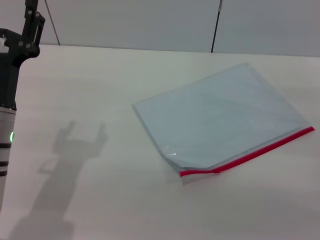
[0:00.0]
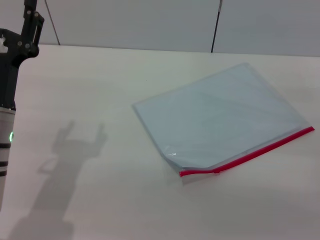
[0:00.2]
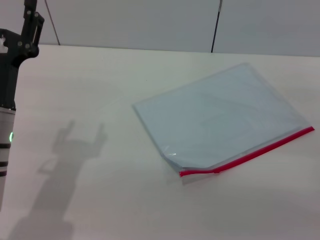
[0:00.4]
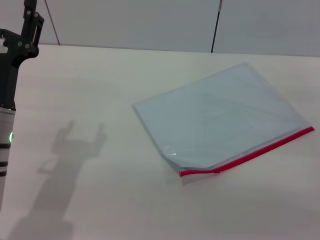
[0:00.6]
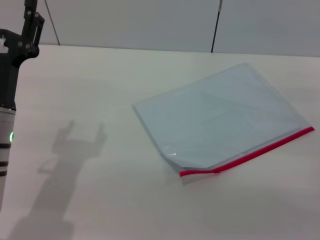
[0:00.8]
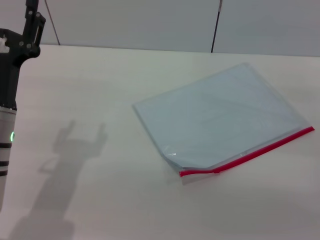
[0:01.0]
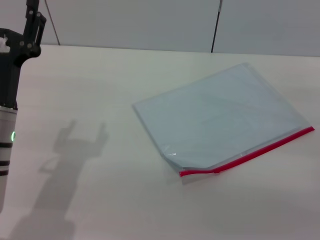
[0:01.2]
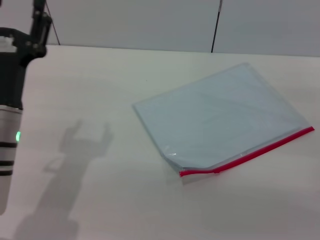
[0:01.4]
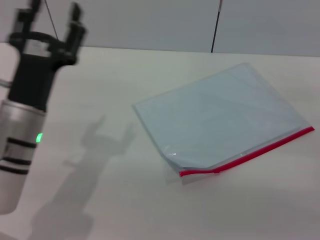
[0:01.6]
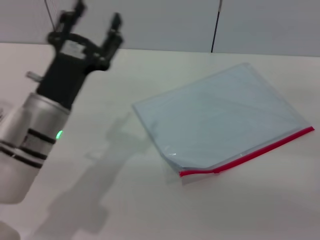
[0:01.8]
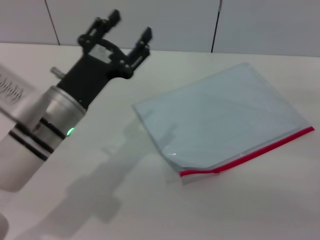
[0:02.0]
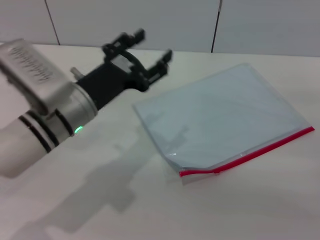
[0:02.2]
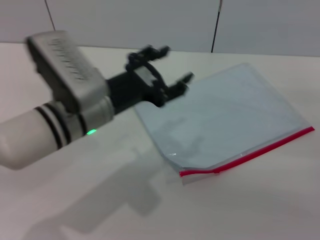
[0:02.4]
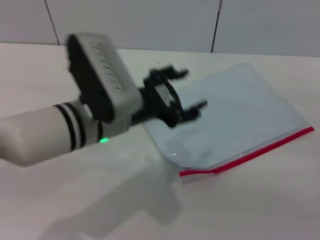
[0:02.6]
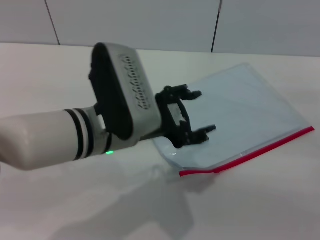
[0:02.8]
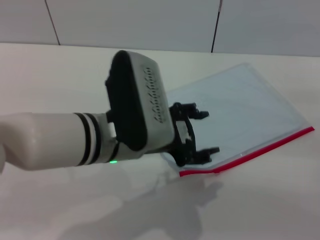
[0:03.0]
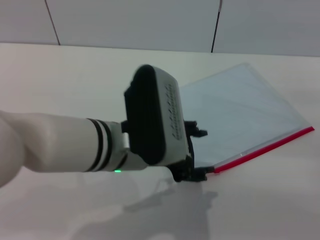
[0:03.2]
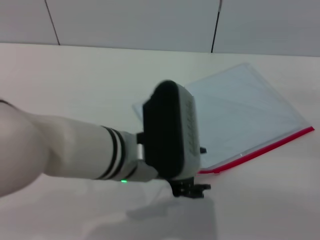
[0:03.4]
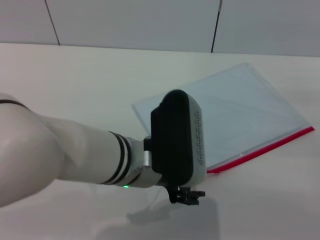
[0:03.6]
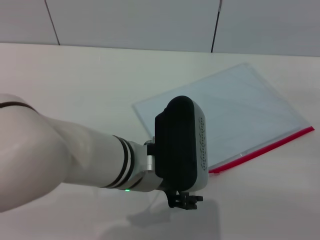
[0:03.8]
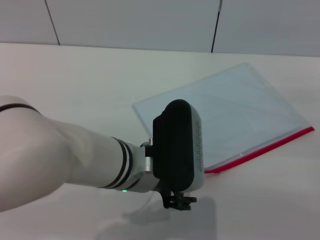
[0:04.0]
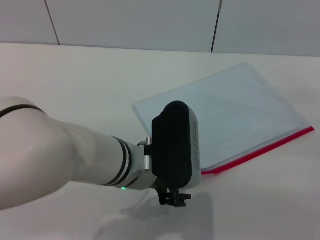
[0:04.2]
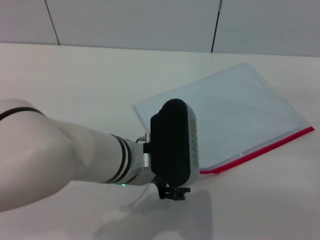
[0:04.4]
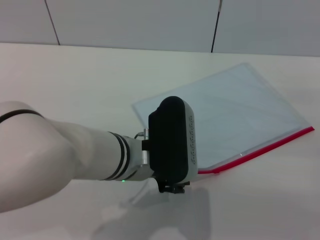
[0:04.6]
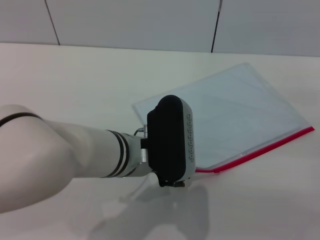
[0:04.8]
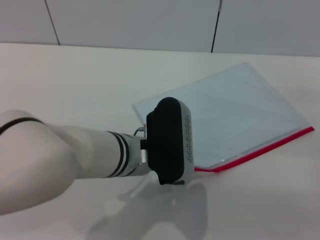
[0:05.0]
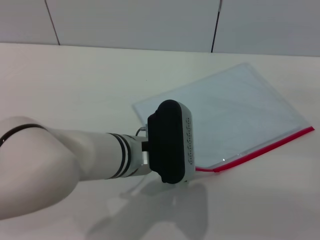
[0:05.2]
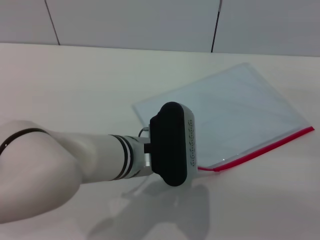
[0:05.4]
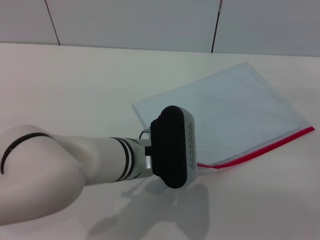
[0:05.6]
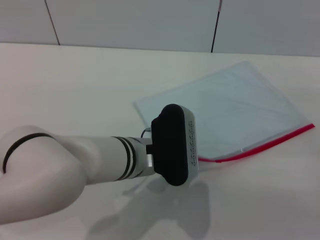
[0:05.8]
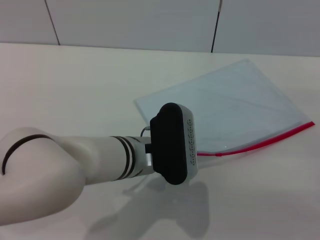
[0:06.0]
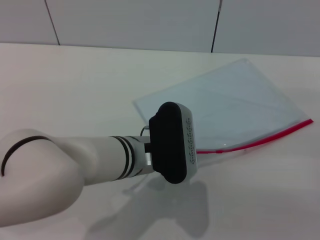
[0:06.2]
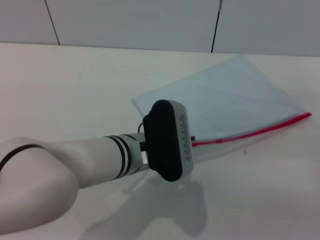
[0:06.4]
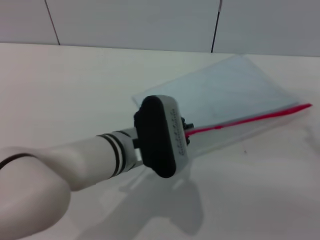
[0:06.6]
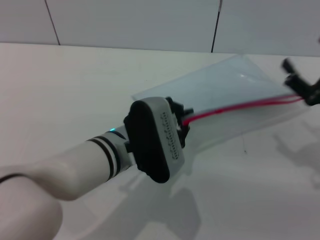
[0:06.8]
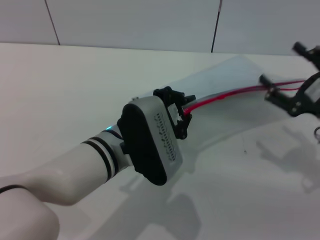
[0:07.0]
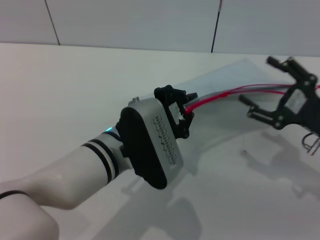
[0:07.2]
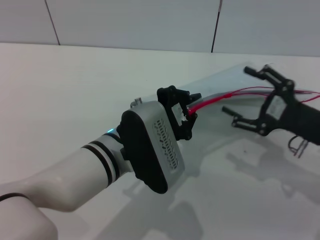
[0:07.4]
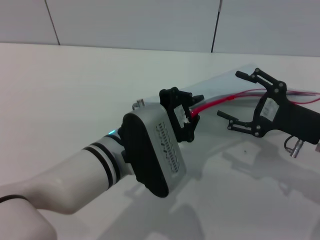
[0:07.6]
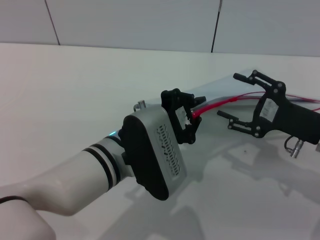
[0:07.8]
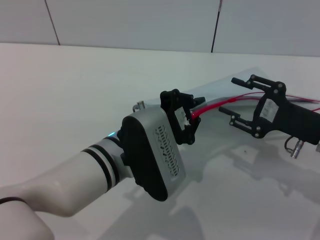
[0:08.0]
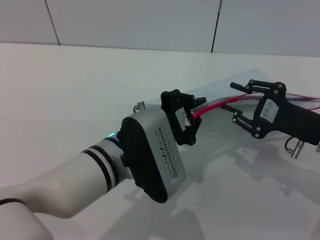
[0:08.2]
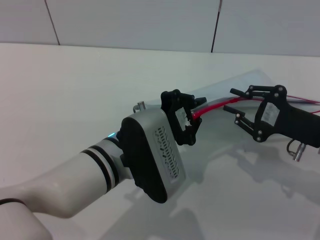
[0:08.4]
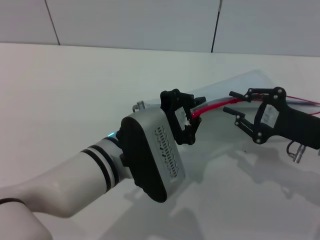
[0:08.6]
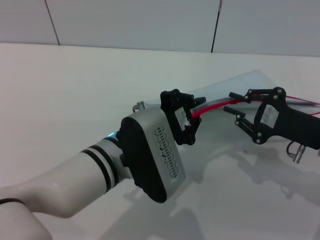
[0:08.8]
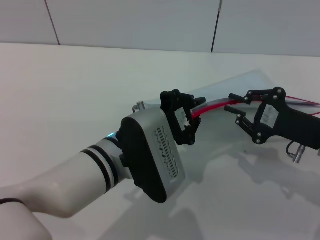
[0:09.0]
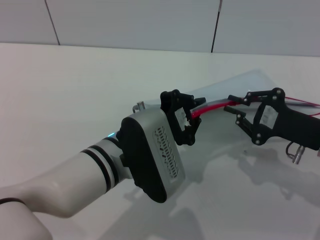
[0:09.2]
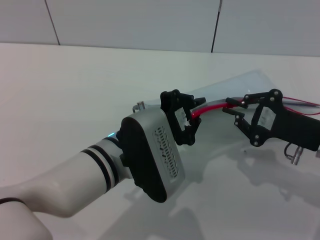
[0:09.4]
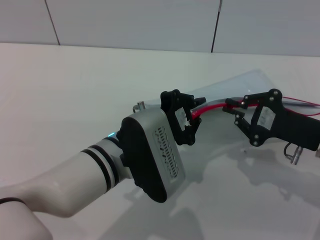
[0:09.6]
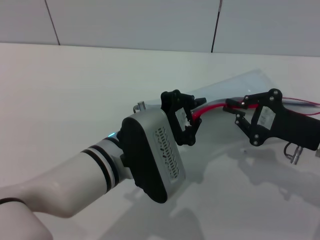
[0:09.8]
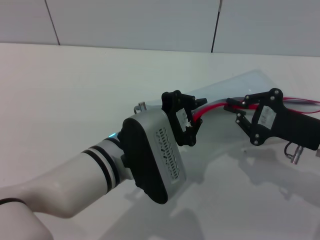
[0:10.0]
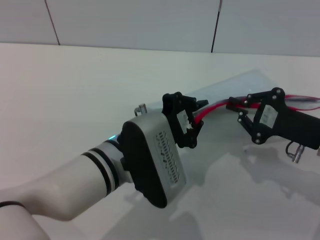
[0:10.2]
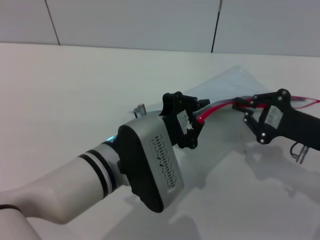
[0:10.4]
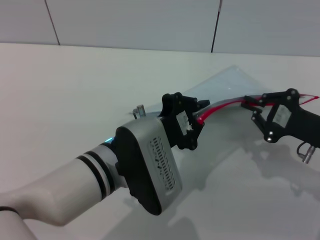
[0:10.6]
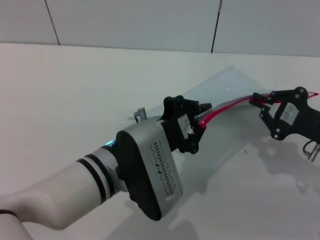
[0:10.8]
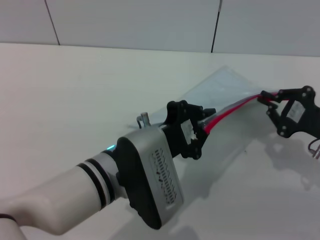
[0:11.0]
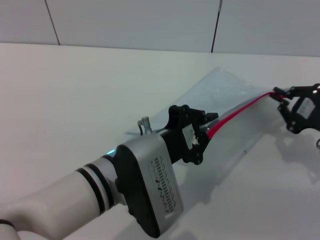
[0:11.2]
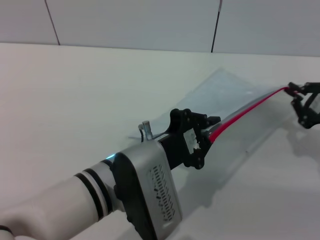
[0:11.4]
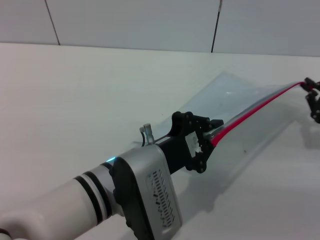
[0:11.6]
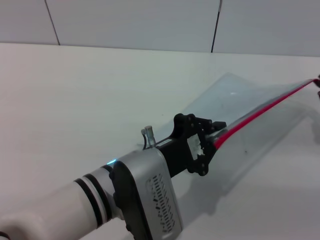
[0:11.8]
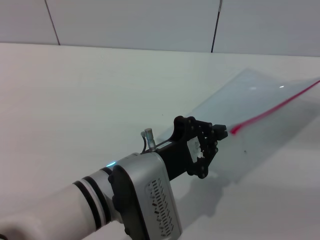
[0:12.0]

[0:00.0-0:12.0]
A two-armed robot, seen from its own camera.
Step, 0.0 to 7.2 s: Pick up the transparent plastic bag with the left gripper.
Step, 7.6 to 11.8 s: Pulling up the zipper on the transparent plastic bag with the right gripper to close it.
0.0 to 1.6 s: The grippers move only a little.
1.6 to 3.0 s: The left gripper moves to the right and upward, roughly 15 cm.
4.4 to 6.0 s: The left gripper closes its fingers.
6.0 to 7.6 s: The right gripper is displaced to the left by some 5 cm.
7.6 to 9.0 s: The right gripper closes up.
9.0 to 10.4 s: Both grippers stay put.
10.4 to 12.0 s: The right gripper shifts about 10 cm to the right.

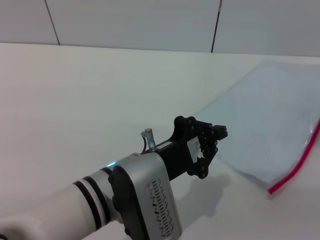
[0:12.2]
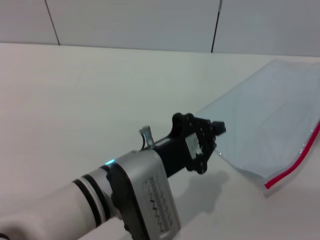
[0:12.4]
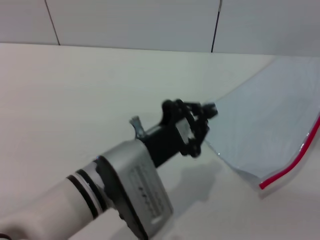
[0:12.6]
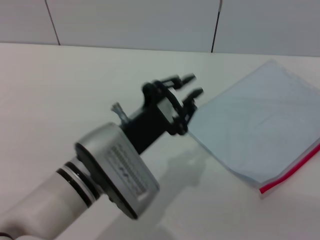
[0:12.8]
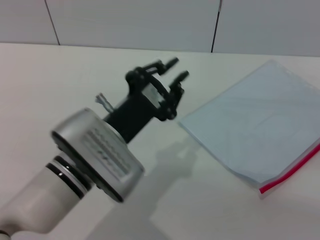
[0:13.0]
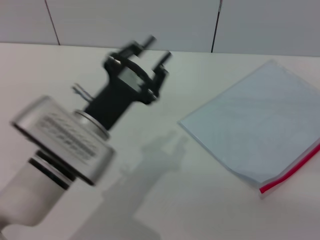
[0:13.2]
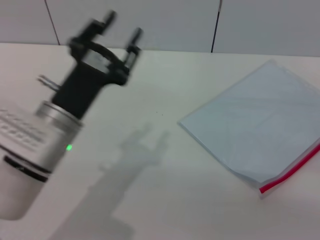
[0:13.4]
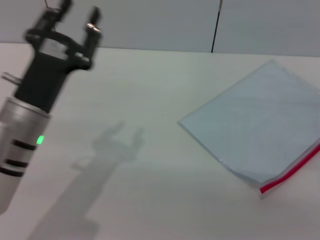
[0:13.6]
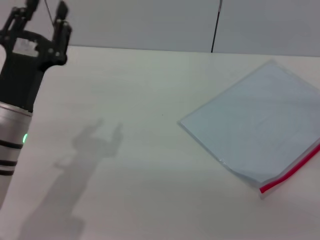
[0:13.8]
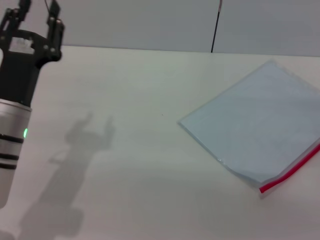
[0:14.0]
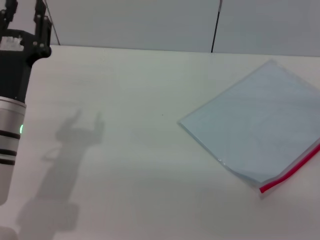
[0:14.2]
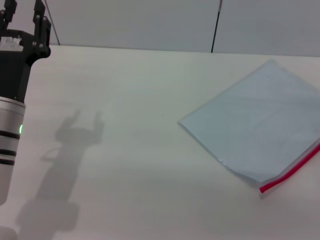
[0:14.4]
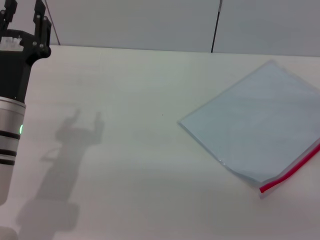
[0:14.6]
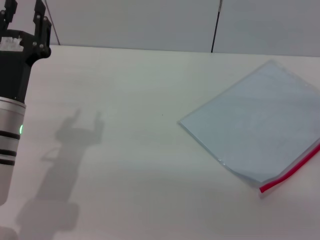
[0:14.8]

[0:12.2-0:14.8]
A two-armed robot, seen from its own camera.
Step, 12.2 to 13.0 s: Place the transparent plastic bag.
12.2 to 13.4 s: The left gripper heads to the left, covering about 10 cm, and opens. The right gripper shifts about 5 cm backward, and opens its fingers.
13.4 to 14.8 s: The left gripper is displaced to the left by about 5 cm.

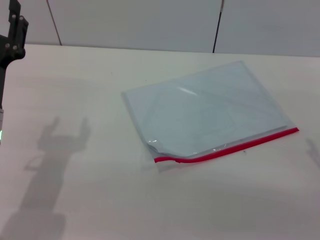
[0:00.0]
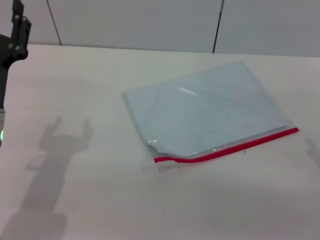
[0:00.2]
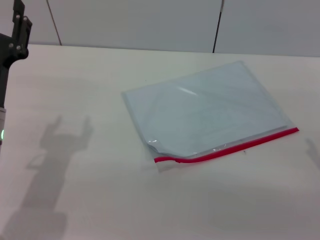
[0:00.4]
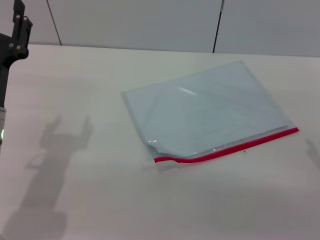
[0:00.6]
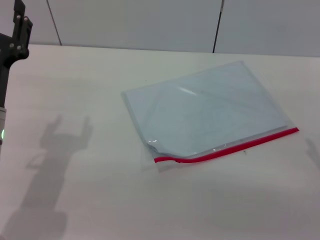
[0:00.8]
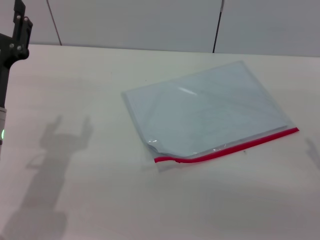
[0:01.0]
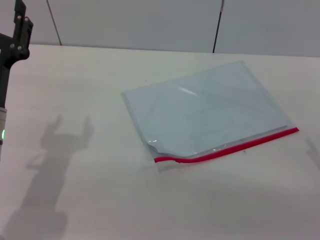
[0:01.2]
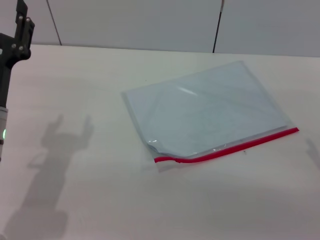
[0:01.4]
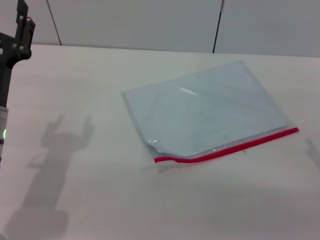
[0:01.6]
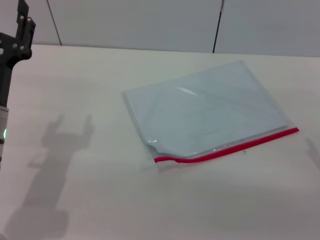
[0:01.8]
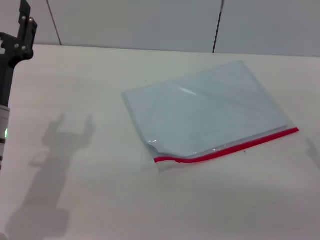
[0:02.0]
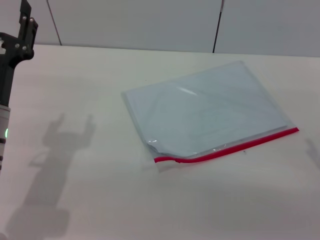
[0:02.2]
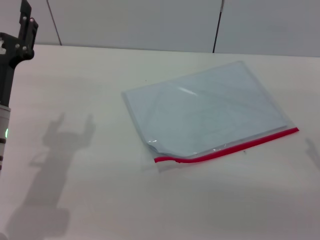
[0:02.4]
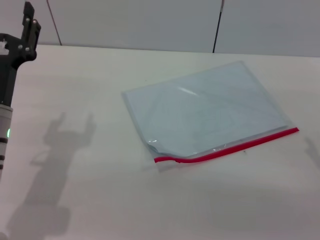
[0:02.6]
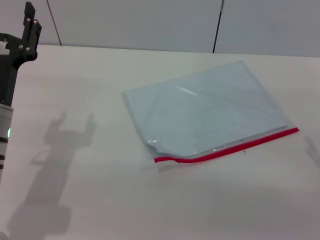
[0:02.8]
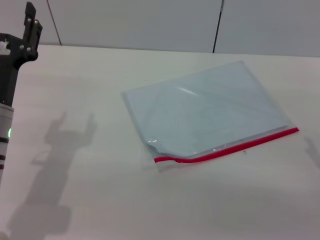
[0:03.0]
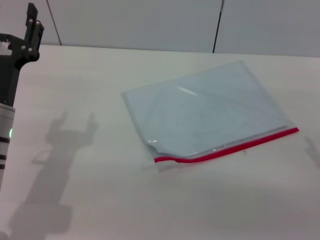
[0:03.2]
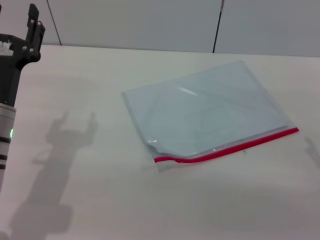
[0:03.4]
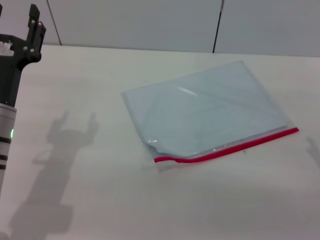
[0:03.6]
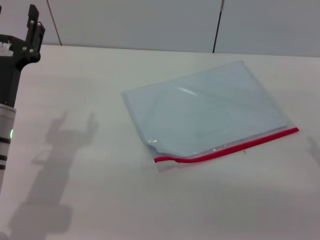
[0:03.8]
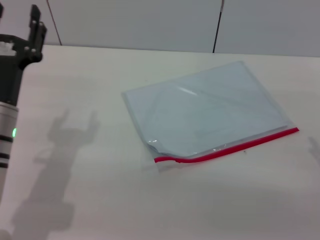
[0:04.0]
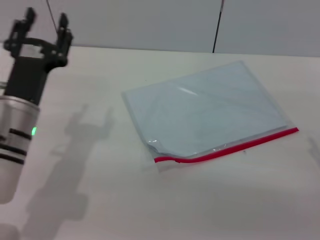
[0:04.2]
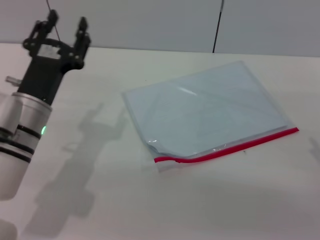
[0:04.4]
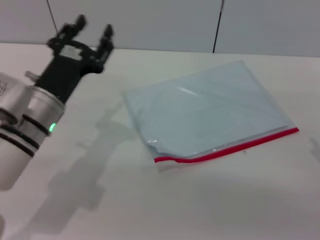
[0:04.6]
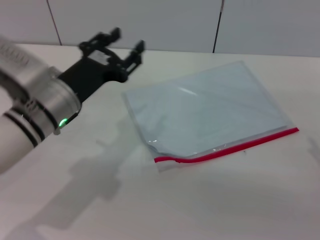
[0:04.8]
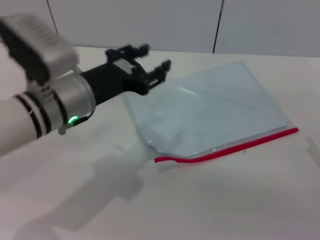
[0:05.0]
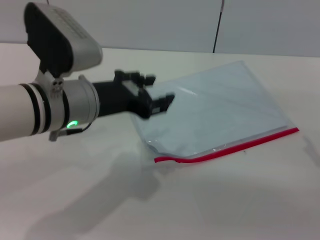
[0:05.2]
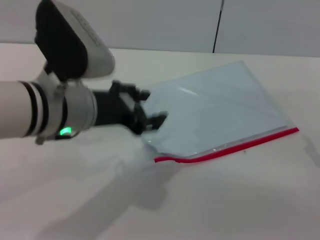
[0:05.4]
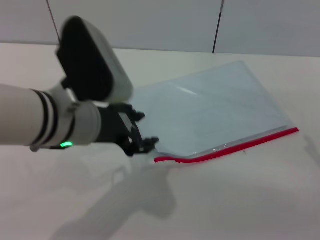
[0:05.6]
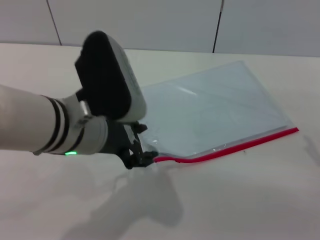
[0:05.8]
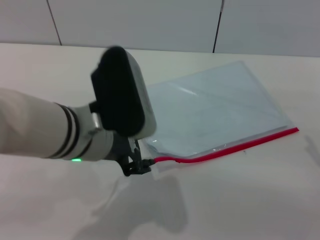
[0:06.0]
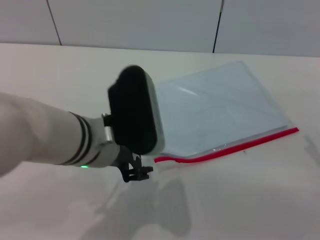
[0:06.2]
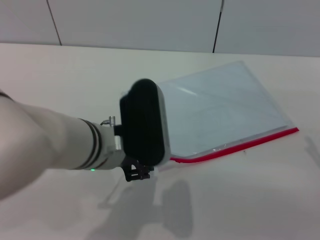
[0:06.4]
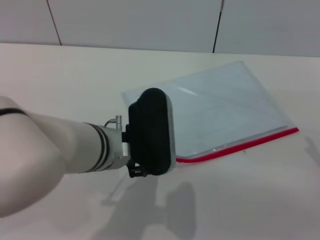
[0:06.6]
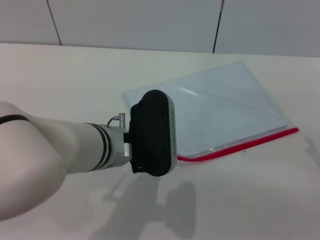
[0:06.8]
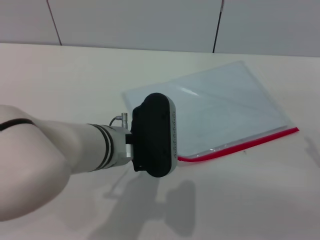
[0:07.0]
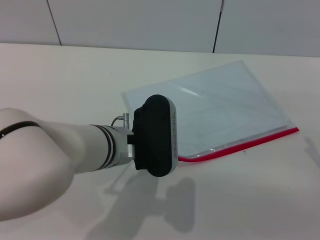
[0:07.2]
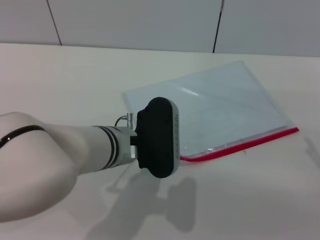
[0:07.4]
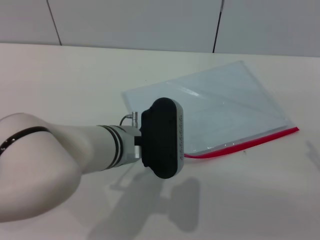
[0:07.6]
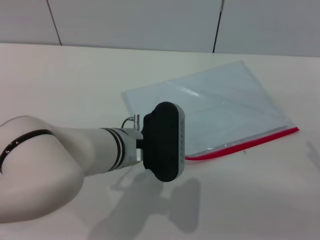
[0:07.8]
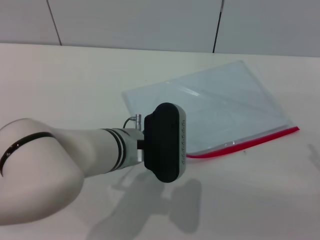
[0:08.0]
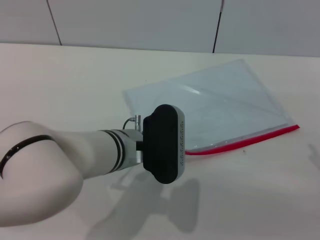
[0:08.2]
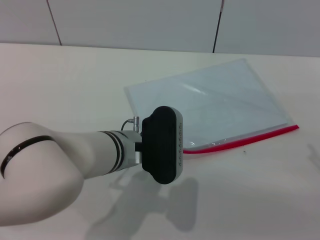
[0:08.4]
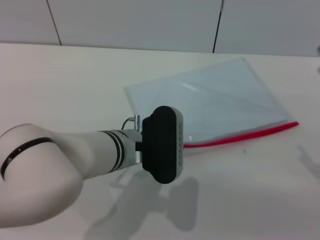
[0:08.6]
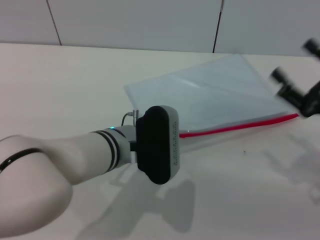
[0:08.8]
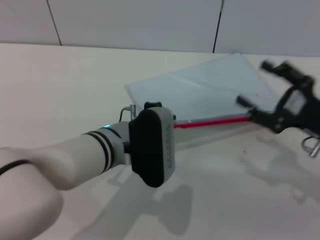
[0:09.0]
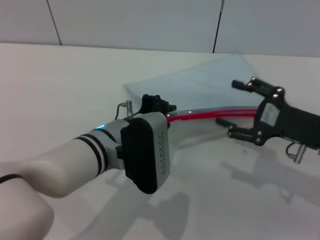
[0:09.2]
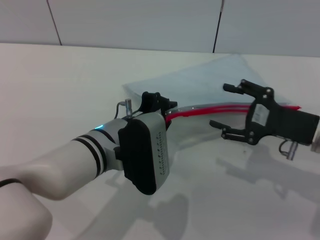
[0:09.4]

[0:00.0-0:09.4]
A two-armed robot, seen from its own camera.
Step, 0.0 to 9.2 s: Pick up the transparent plastic bag with the left gripper.
0.0 to 3.2 s: The two grippers keep their place.
3.2 to 4.8 s: The left gripper shifts about 5 cm to the right.
4.8 to 6.2 s: The left gripper moves to the right, roughly 5 cm.
6.2 to 7.8 s: The left gripper moves downward, approximately 5 cm.
7.8 to 9.4 s: The left gripper closes up. The right gripper goes some 10 cm to the left and forward.
